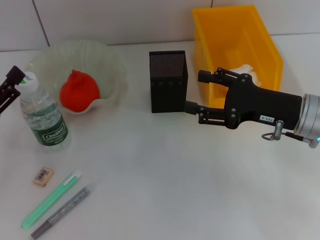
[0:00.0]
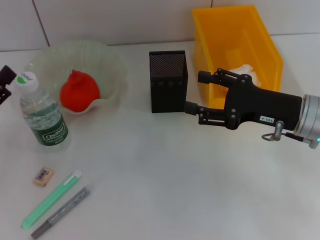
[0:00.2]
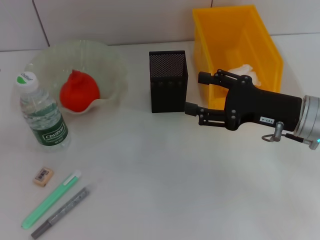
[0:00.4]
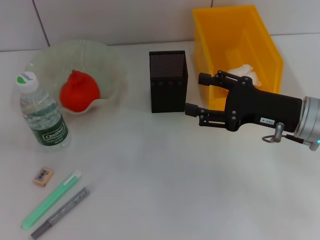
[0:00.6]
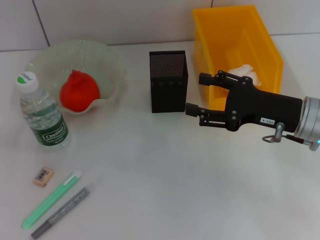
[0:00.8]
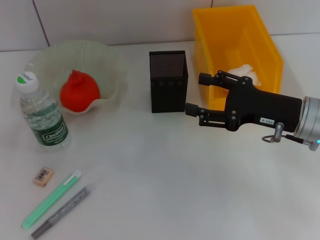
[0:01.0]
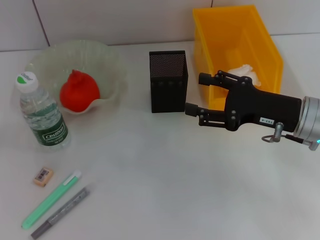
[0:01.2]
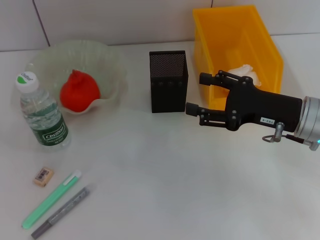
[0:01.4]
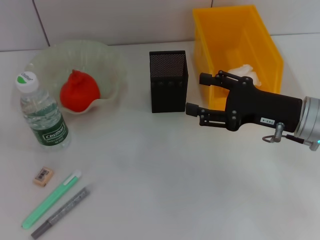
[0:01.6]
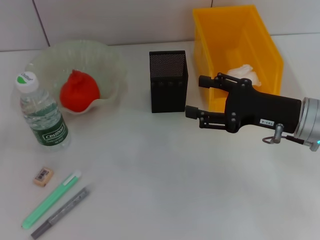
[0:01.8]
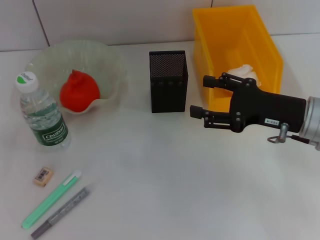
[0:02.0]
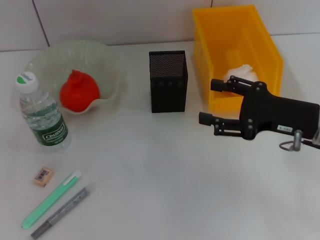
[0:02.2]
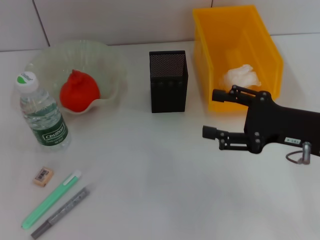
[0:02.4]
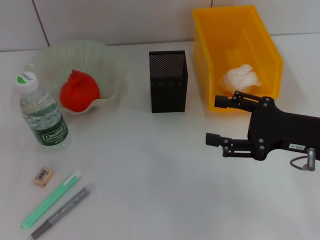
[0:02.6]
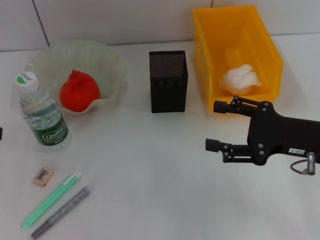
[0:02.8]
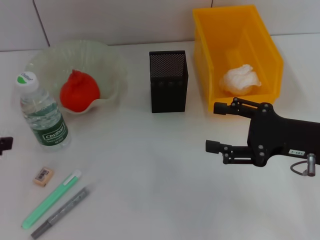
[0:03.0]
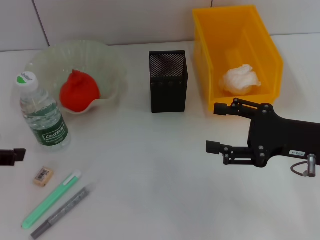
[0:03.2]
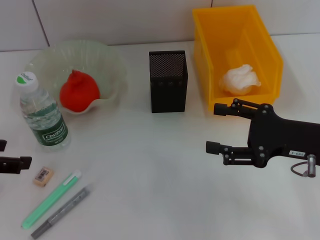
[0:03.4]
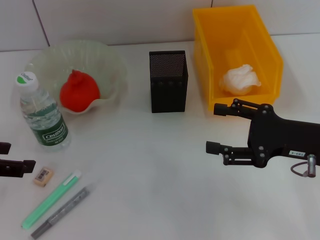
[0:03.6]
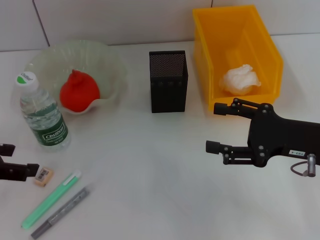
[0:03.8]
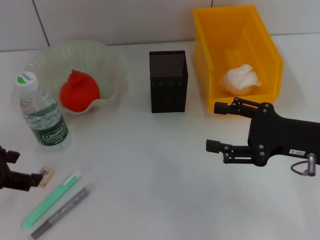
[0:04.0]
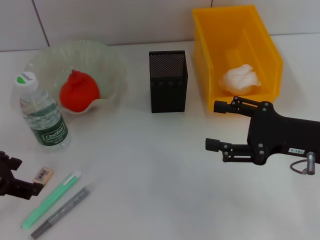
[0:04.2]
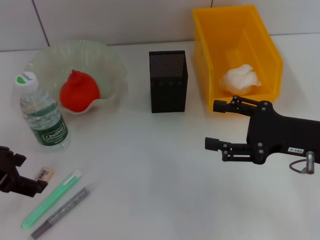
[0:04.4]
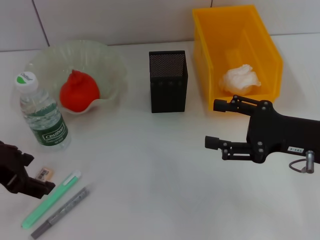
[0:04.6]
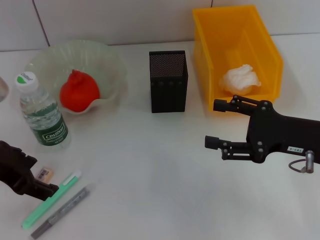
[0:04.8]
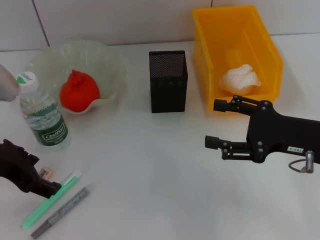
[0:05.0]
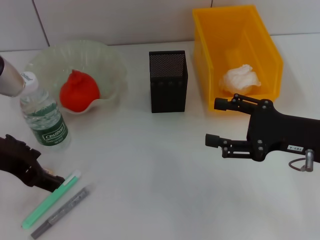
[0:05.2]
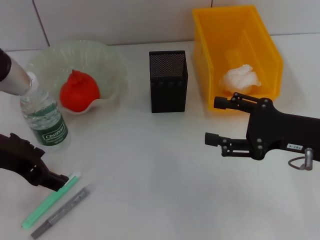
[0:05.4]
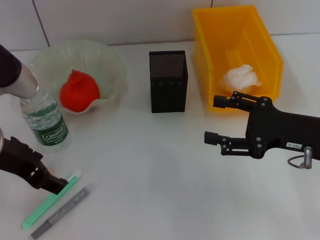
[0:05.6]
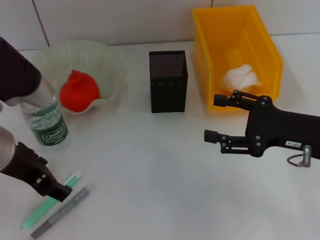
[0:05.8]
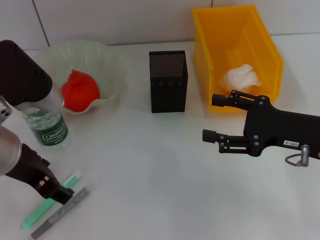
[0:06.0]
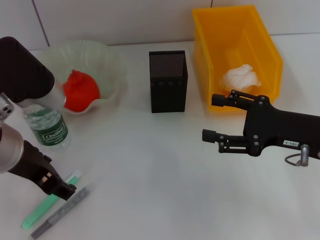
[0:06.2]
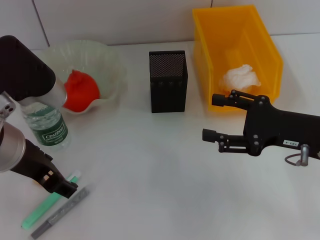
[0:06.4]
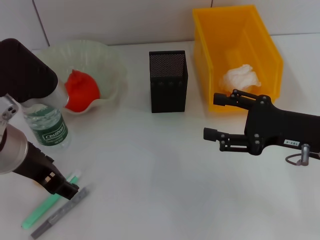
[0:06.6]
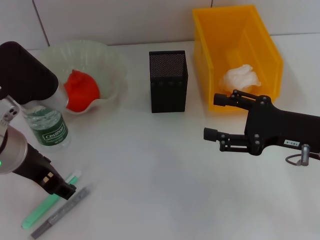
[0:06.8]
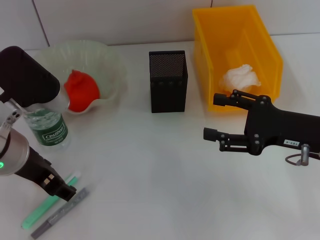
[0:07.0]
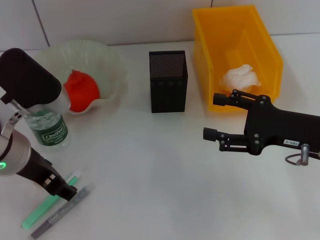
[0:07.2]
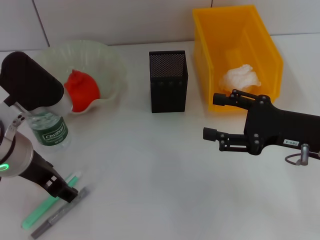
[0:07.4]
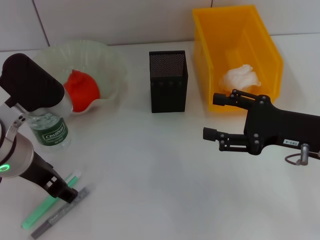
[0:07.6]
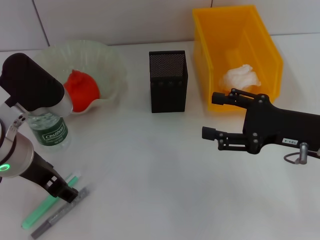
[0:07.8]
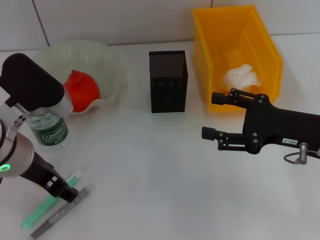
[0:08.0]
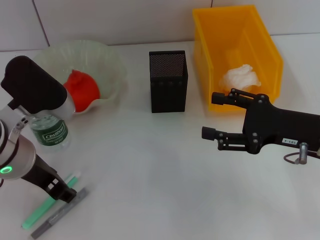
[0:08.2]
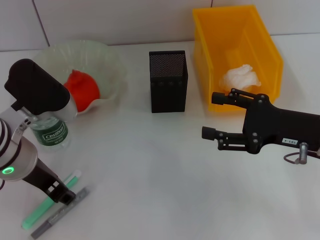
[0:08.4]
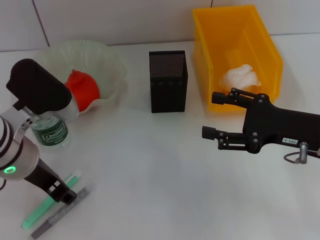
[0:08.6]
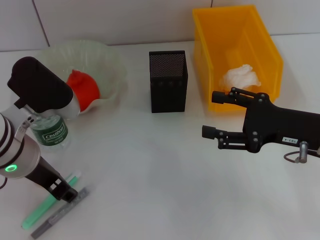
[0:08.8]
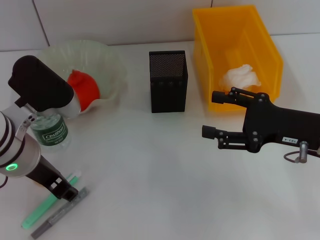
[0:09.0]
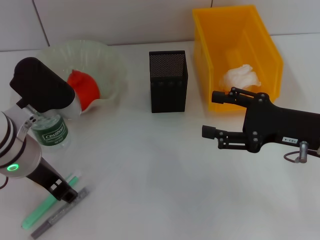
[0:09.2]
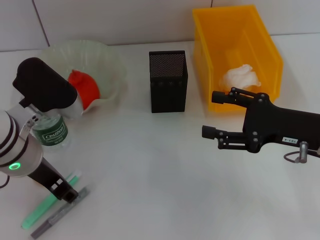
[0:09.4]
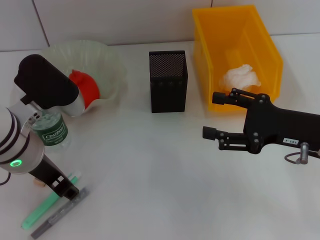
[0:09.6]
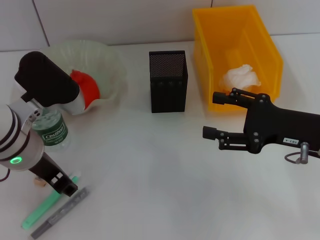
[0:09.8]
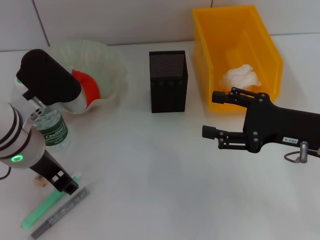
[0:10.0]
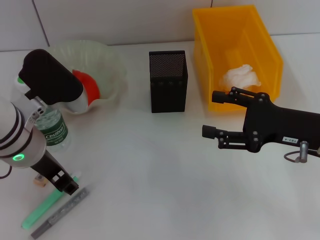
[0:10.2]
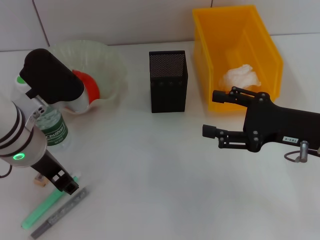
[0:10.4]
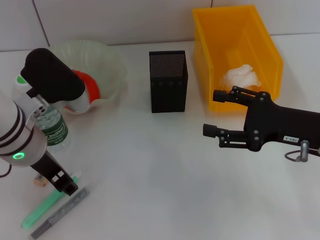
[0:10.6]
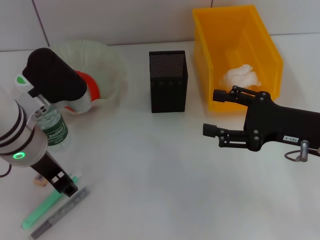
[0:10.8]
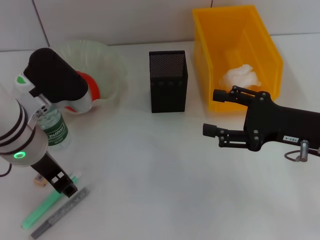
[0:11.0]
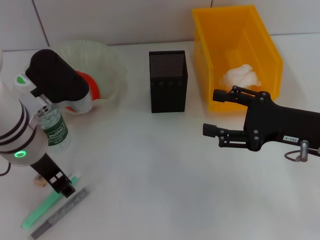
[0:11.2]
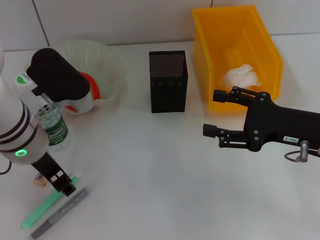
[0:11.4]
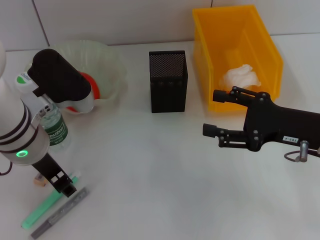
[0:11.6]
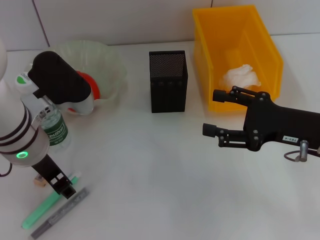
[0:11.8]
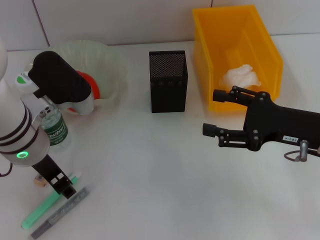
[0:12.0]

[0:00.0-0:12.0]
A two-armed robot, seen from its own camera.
0:00.0 to 0:01.6: The left gripper moves to the left and upward, approximately 10 cm.
0:01.6 to 0:03.0: The left gripper is displaced to the right by some 5 cm.
0:03.0 to 0:04.4: The left gripper travels to the right by about 5 cm.
0:04.4 to 0:06.0: The left gripper moves to the right, approximately 10 cm.
0:06.0 to 0:07.6: The grippers stay close to where they were, moving slightly.
0:07.6 to 0:09.0: Neither gripper changes place.
0:09.0 to 0:10.4: The grippers stay close to where they were, moving slightly.
0:10.4 to 0:12.0: Both grippers stay put.

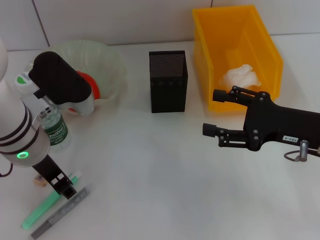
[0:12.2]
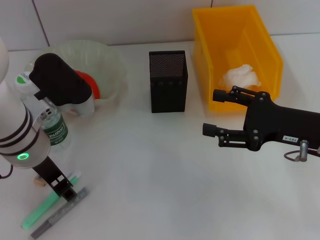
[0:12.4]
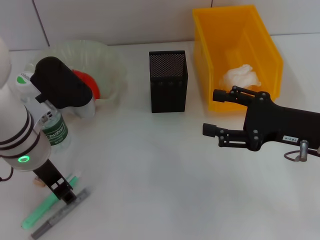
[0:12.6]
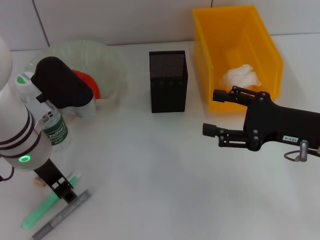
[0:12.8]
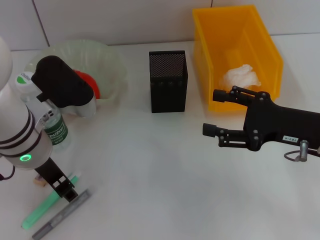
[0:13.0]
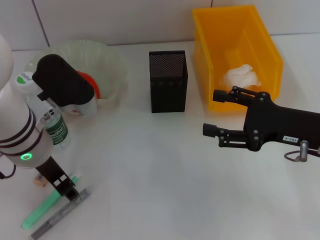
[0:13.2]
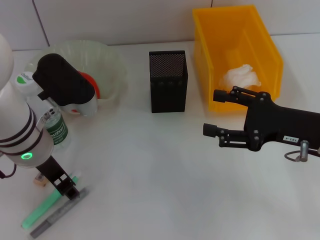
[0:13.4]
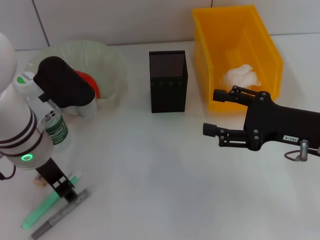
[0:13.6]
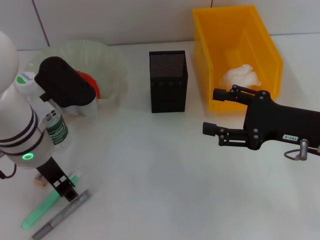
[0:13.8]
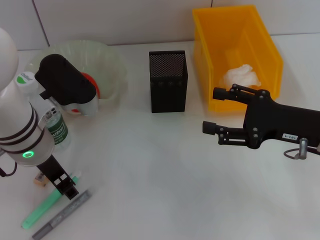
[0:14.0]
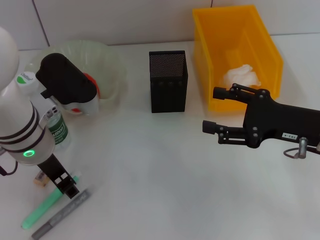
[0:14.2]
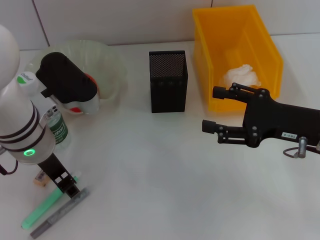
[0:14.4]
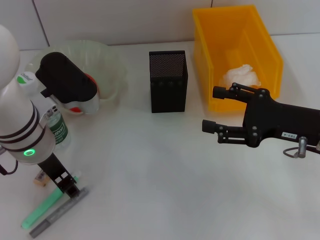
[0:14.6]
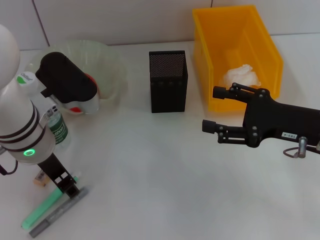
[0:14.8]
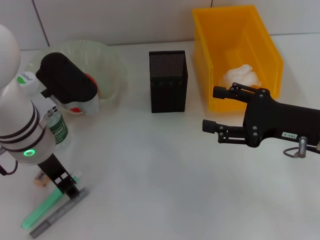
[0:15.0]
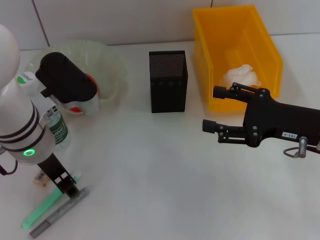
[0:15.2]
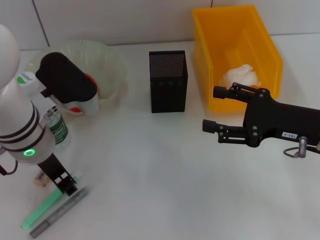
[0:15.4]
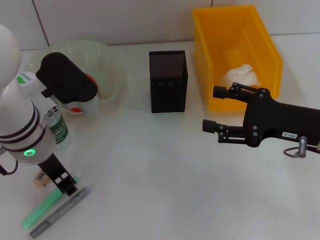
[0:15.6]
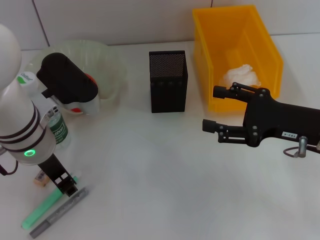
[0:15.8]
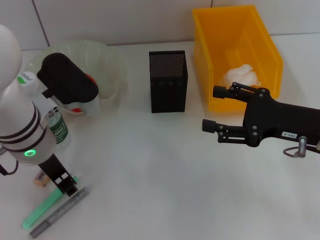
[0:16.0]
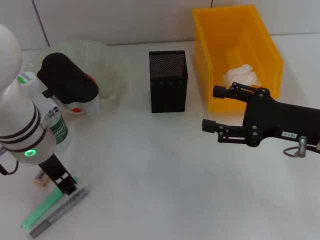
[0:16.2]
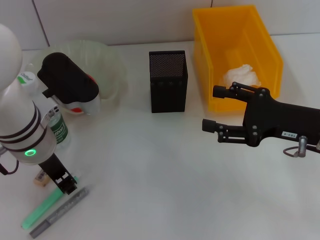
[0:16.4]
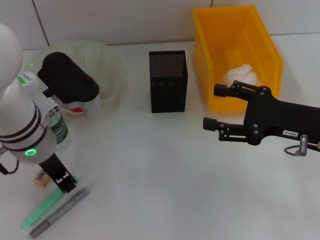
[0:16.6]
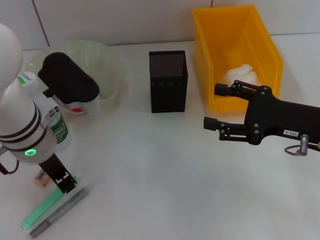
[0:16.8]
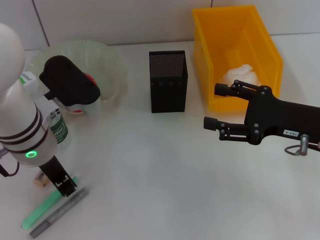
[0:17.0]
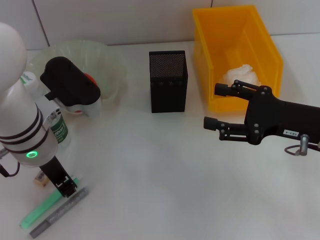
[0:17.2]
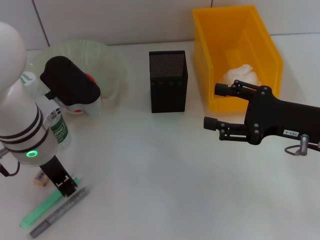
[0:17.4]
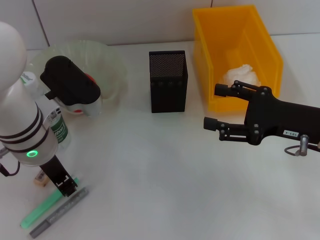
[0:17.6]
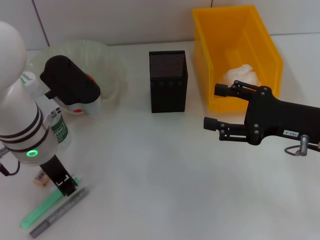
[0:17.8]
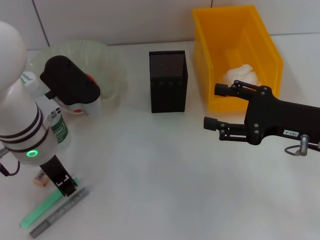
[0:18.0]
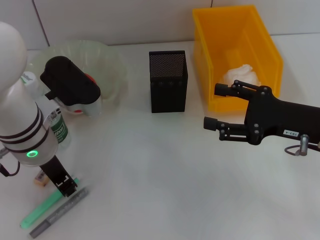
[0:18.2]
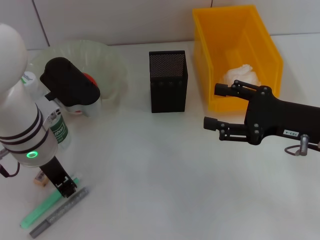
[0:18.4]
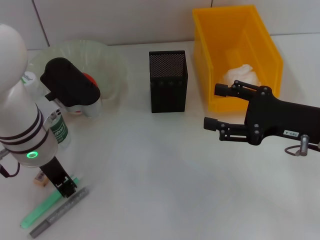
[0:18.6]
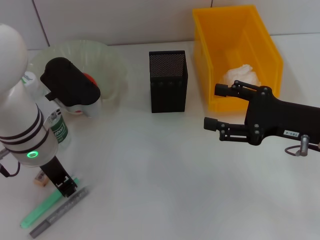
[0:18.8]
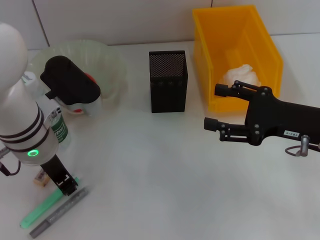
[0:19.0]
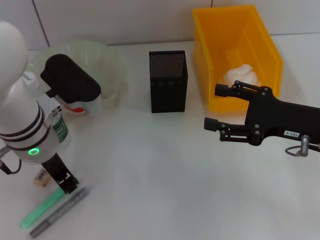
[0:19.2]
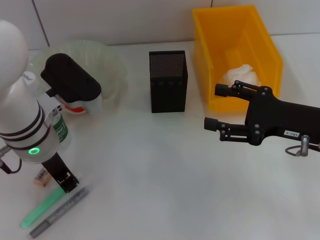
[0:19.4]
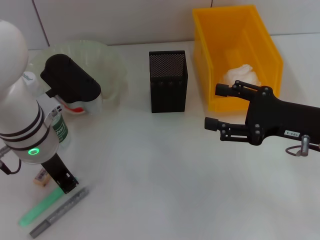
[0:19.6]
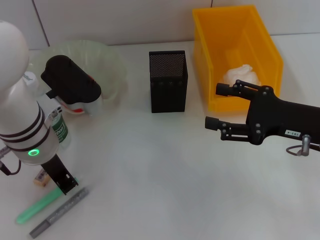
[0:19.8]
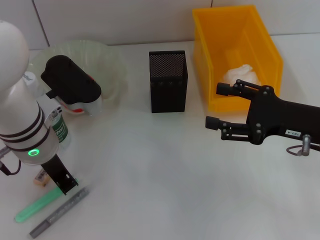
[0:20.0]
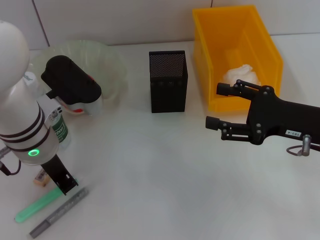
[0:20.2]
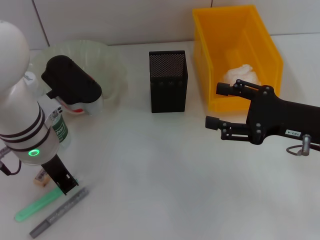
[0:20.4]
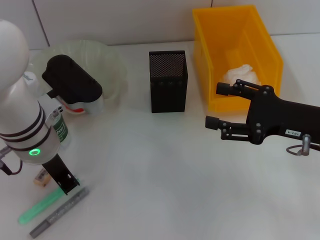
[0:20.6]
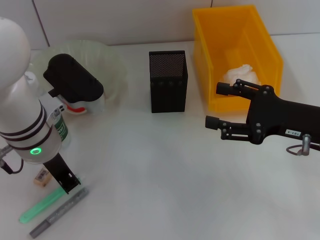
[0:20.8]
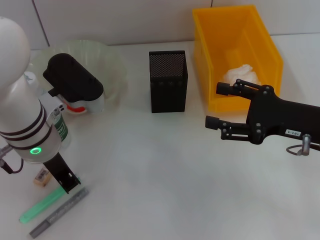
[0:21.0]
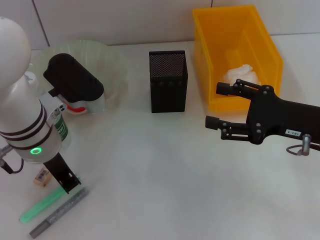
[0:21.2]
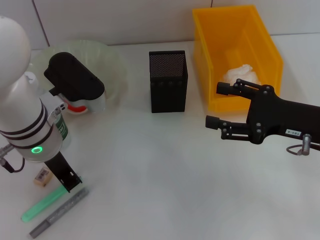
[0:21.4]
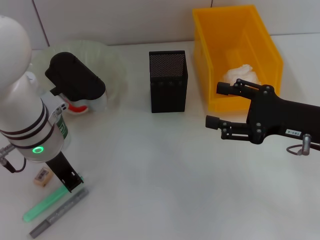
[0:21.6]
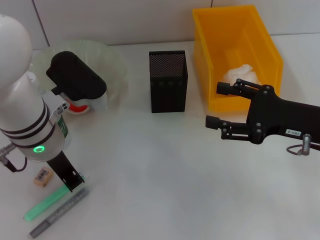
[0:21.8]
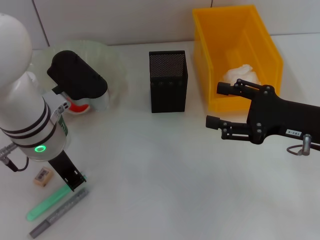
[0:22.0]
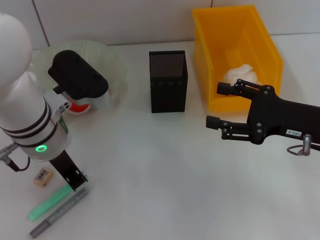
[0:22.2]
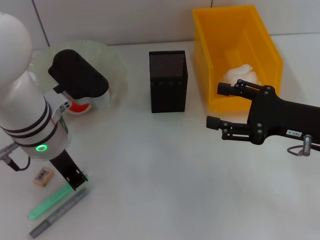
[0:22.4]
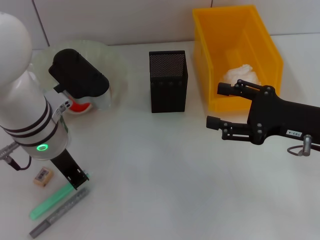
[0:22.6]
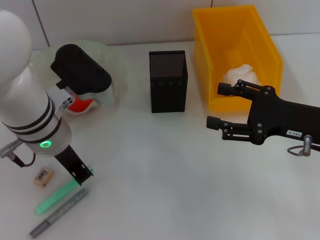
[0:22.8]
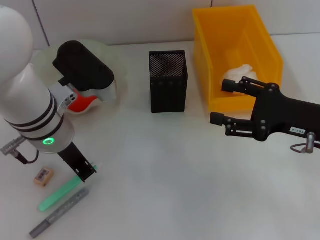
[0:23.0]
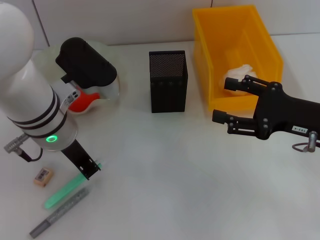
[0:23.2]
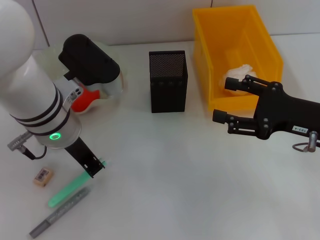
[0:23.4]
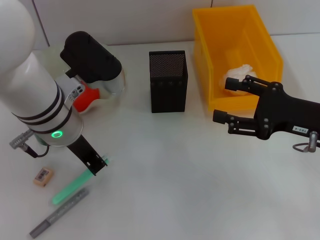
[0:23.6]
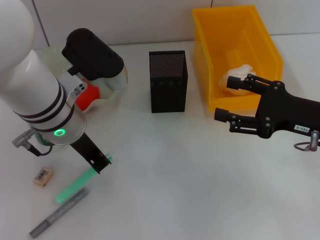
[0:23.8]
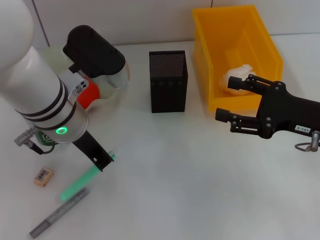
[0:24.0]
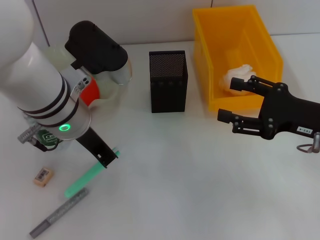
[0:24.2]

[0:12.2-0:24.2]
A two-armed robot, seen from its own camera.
Step, 0:12.2 to 0:22.0: Grab the blue utility knife with the left hand.
0:12.2 to 0:16.6: Both grippers stay about where they are.
0:16.6 to 0:22.6: Both grippers stay about where they are.
0:22.6 to 0:24.2: The grippers move only a little.
